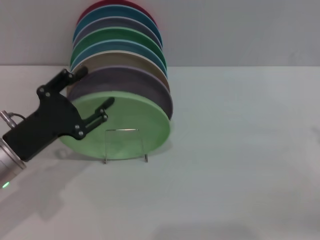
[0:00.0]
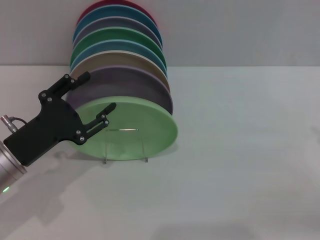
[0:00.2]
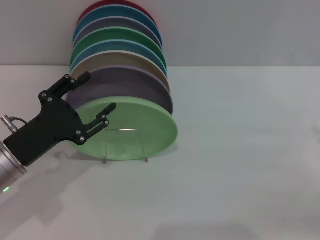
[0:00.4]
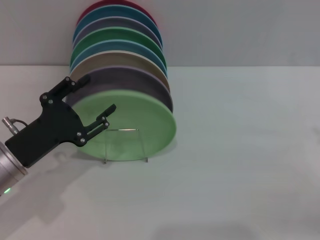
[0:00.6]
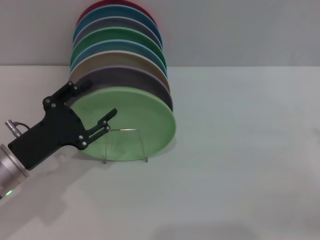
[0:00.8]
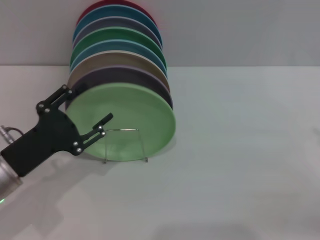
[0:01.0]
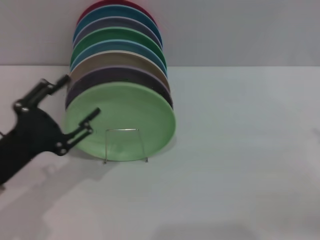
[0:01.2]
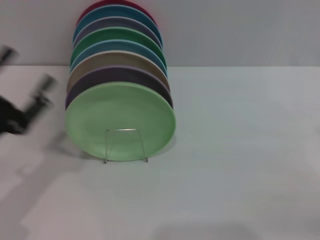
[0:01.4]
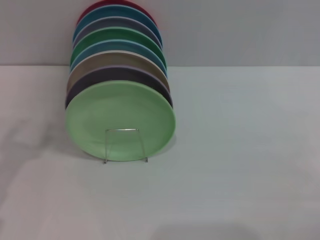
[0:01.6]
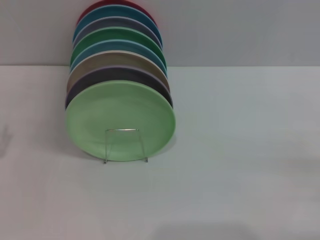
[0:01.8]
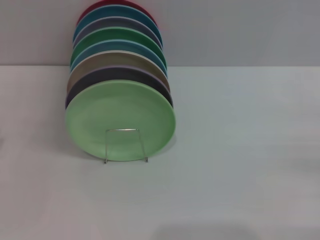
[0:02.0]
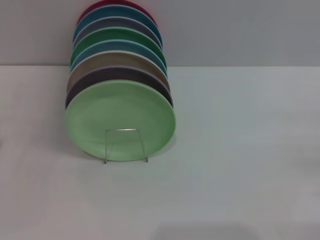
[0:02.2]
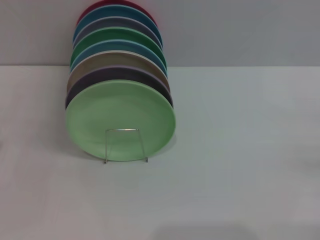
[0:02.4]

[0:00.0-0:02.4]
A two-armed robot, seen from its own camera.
Task of the whole recording: Grip the plate with one hand, pass it to the other, then set it on the shelf.
0:00.0 to 0:01.2: There are only small adjustments of the grippers.
0:01.2 to 0:02.4: The left gripper is displaced to the left by approximately 10 cm.
